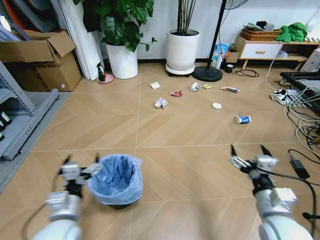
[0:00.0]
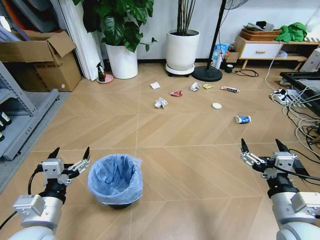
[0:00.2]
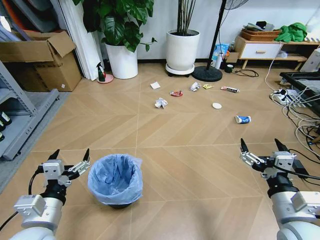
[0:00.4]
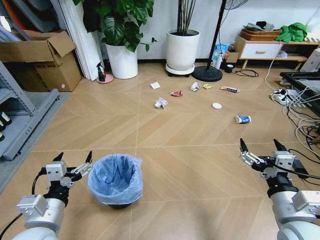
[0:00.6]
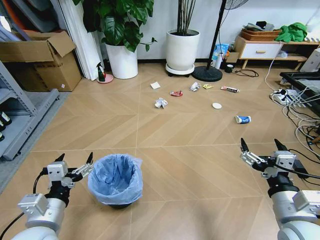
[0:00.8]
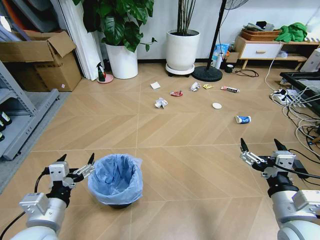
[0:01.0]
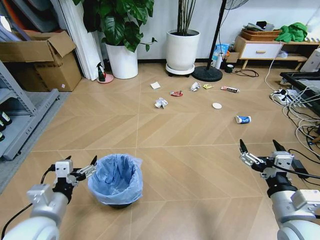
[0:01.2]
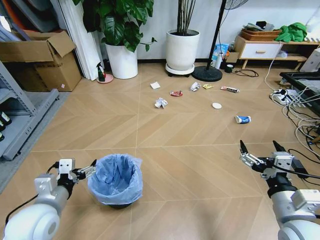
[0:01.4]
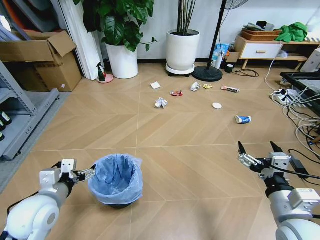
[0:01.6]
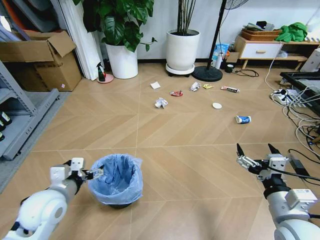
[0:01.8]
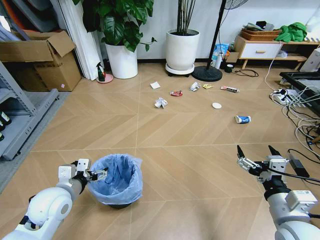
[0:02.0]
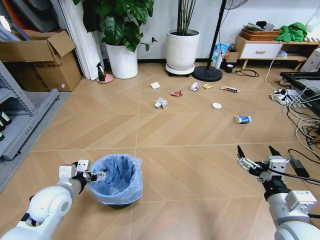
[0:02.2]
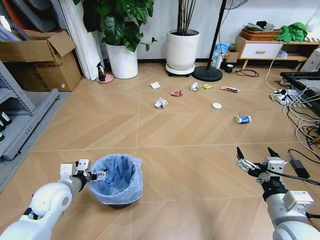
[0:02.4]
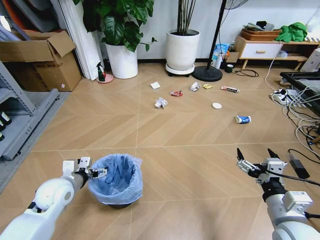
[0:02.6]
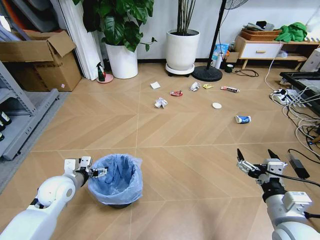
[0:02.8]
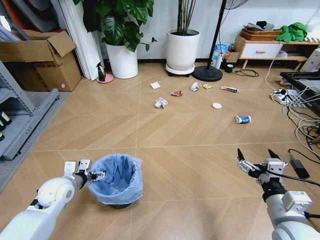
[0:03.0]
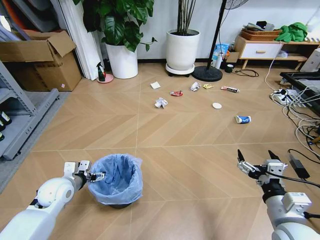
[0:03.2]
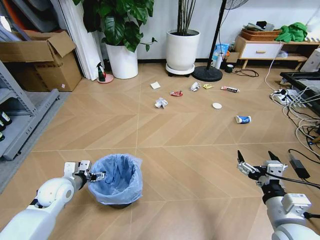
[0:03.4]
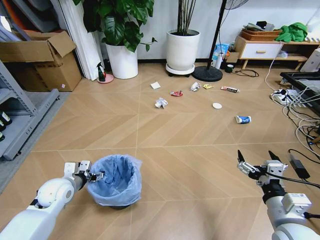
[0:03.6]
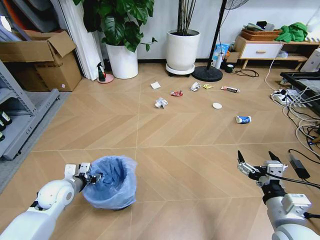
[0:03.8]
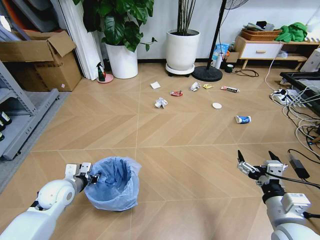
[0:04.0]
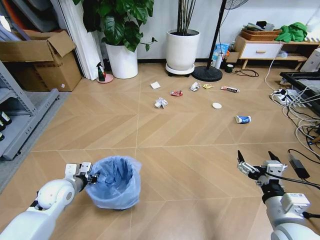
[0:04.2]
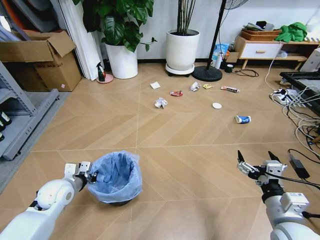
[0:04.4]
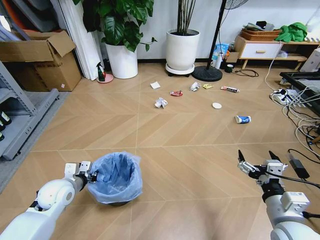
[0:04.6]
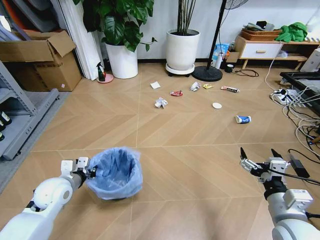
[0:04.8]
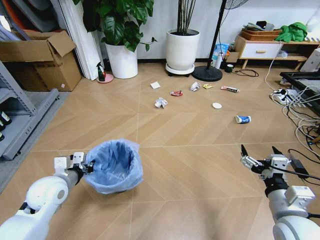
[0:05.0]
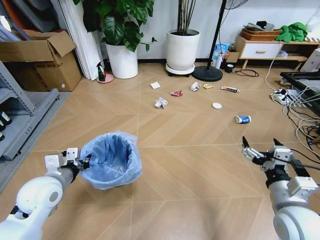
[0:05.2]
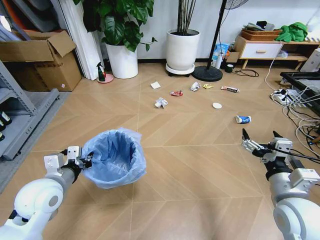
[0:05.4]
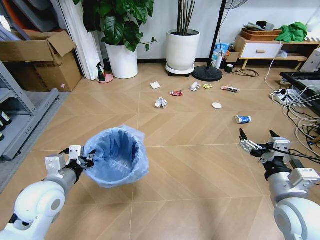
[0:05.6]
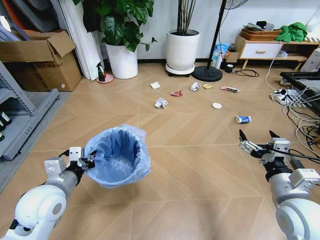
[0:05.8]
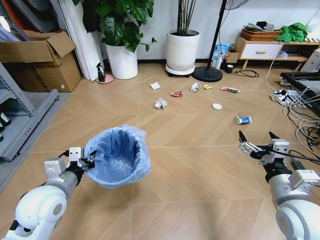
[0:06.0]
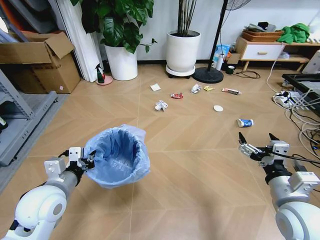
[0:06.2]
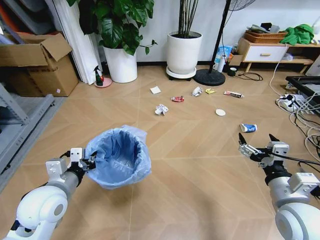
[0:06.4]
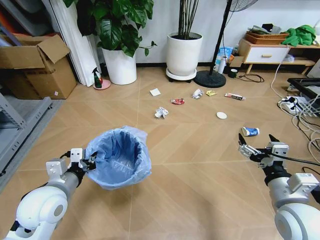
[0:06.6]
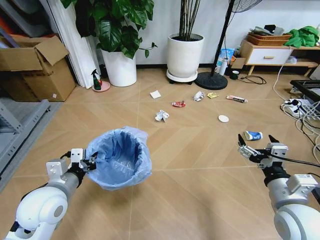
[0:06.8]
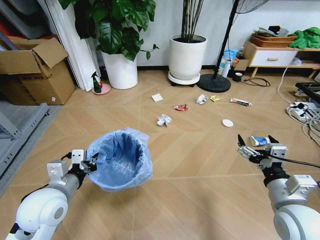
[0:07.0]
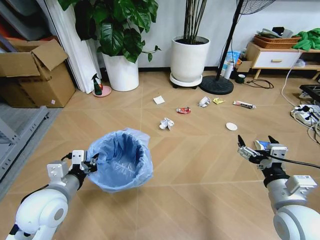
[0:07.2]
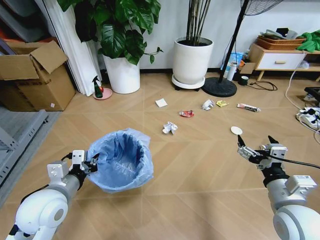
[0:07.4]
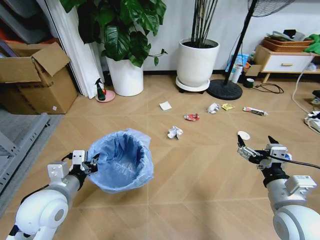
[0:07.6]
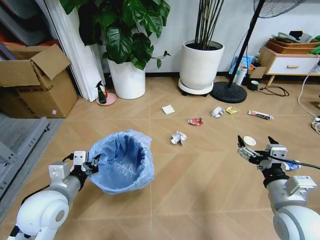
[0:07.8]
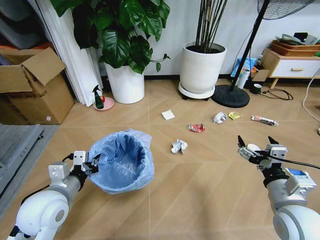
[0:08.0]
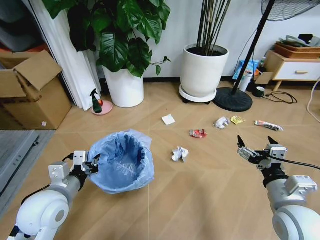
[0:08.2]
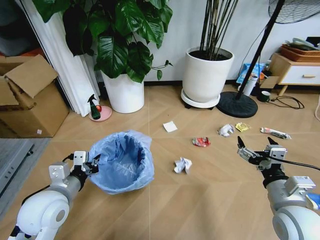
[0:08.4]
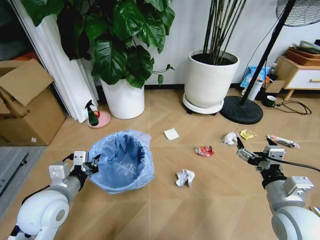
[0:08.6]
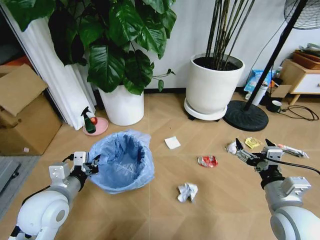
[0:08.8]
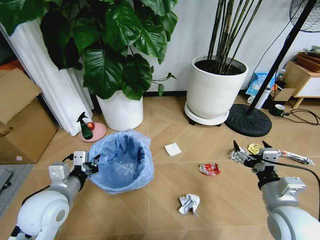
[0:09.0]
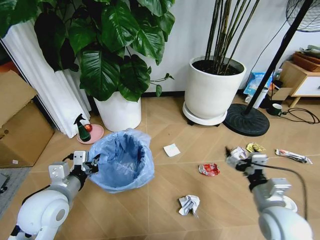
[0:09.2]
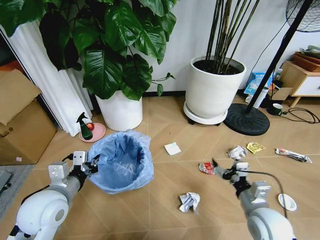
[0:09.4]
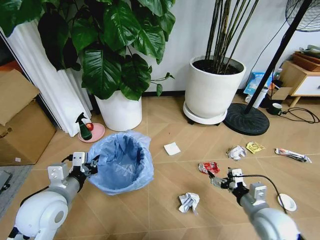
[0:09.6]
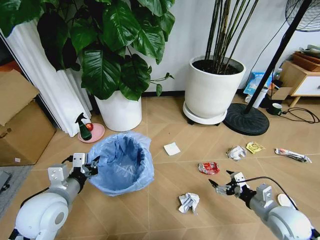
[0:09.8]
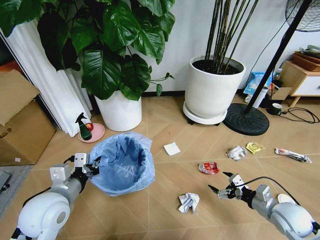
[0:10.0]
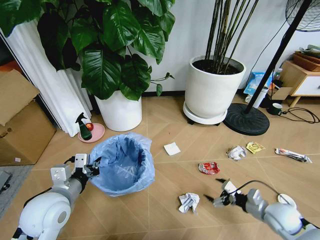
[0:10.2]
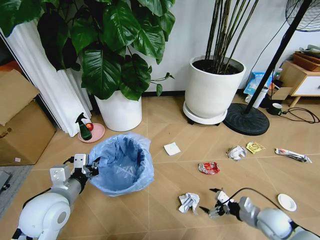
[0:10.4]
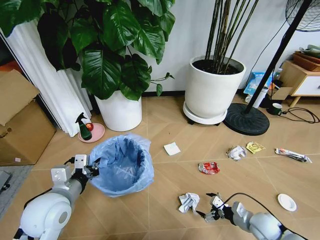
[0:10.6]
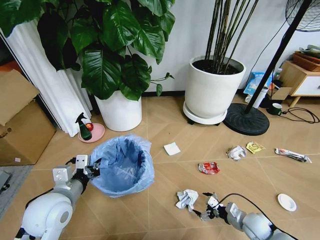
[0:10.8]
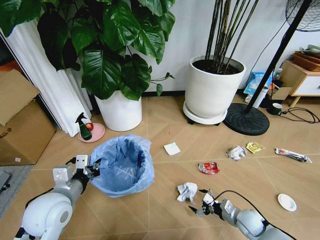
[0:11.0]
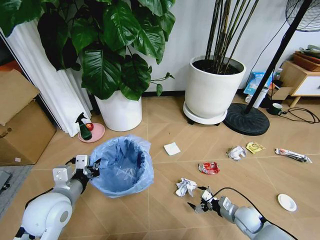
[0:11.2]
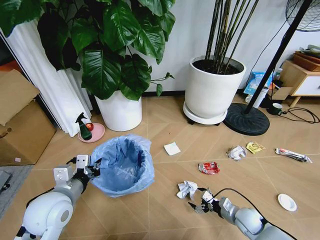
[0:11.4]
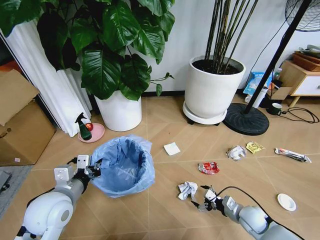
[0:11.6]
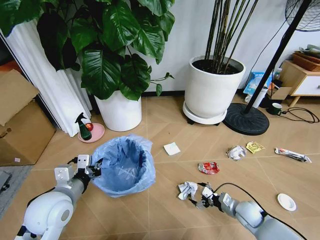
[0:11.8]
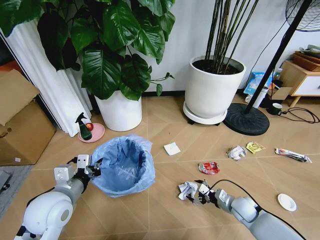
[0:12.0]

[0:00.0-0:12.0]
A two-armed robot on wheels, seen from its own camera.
Task of the whole recording: Pick up the trash bin and place the garbage on the floor into it.
0:01.6 to 0:03.0: The left gripper is displaced forward and downward by some 10 cm.
0:03.0 to 0:04.4: The left gripper closes.
0:04.4 to 0:06.0: The left gripper travels upward, backward and to the right by some 15 cm; the right gripper shifts by about 5 cm.
0:09.0 to 0:10.4: The right gripper heads downward and to the right, covering some 20 cm.
0:10.4 to 0:12.0: The right gripper moves forward, downward and to the left, approximately 10 cm.

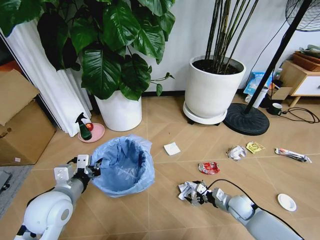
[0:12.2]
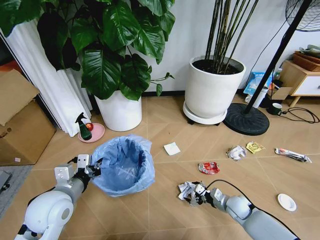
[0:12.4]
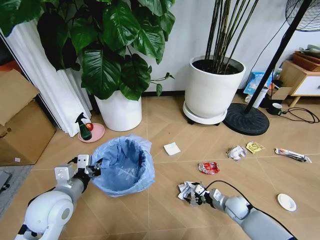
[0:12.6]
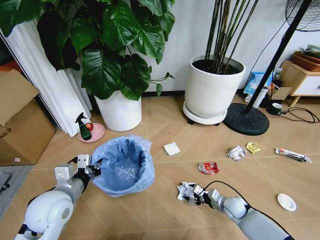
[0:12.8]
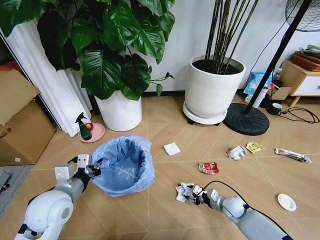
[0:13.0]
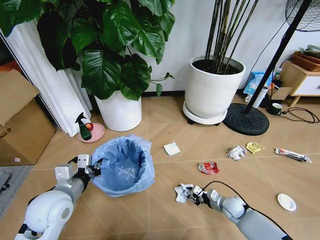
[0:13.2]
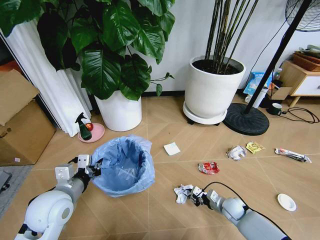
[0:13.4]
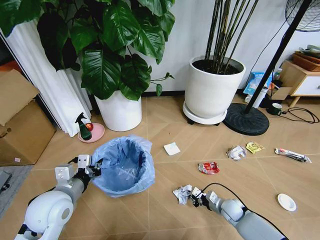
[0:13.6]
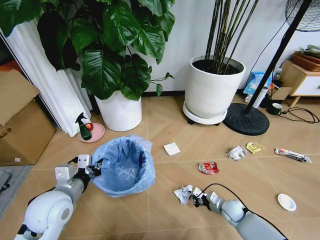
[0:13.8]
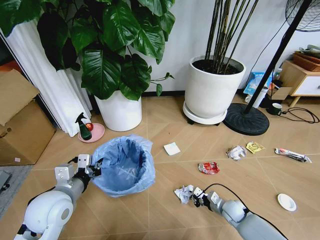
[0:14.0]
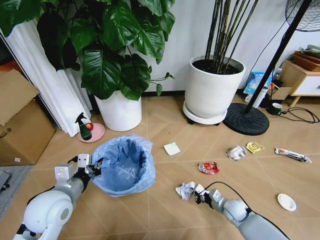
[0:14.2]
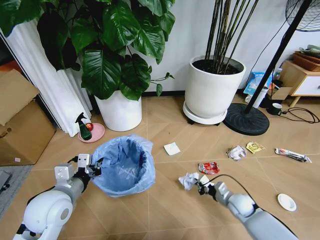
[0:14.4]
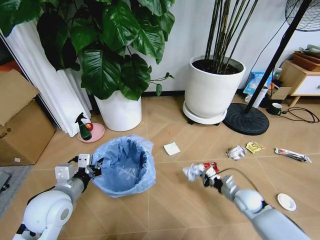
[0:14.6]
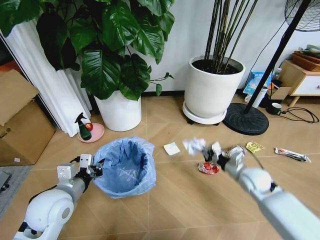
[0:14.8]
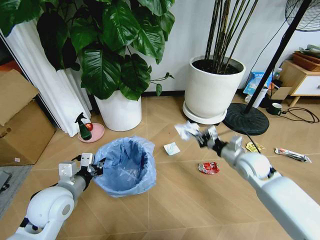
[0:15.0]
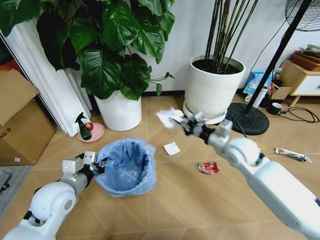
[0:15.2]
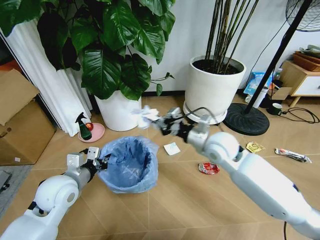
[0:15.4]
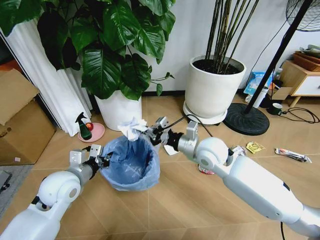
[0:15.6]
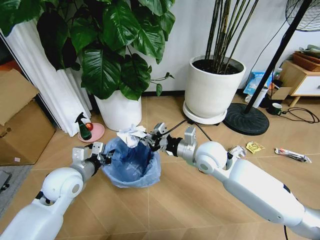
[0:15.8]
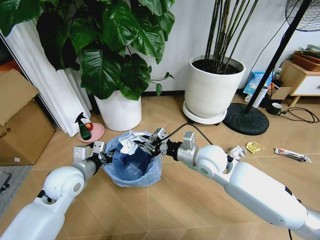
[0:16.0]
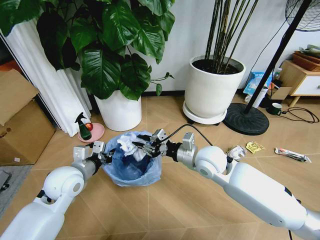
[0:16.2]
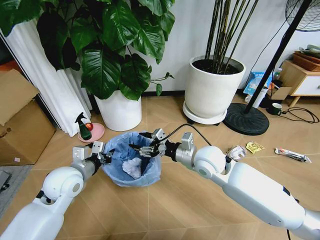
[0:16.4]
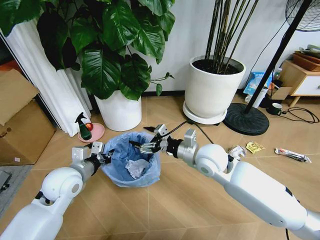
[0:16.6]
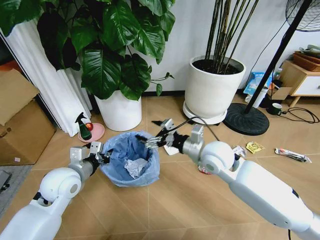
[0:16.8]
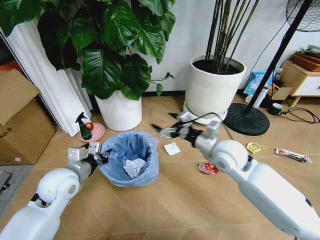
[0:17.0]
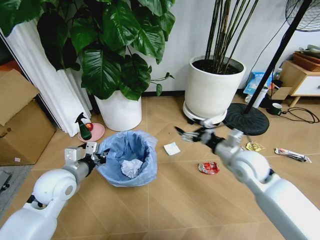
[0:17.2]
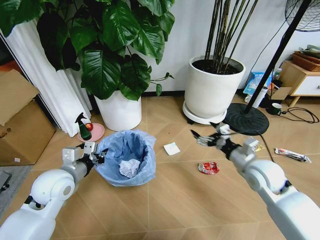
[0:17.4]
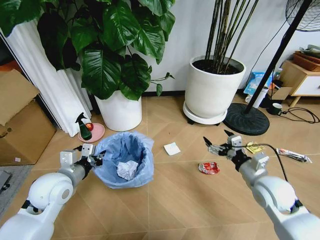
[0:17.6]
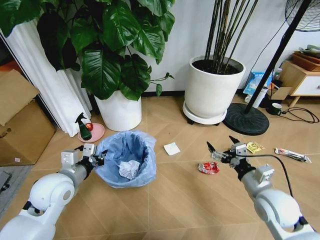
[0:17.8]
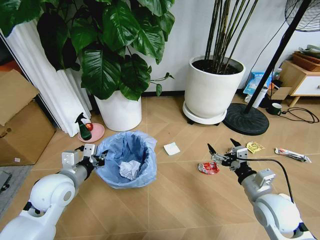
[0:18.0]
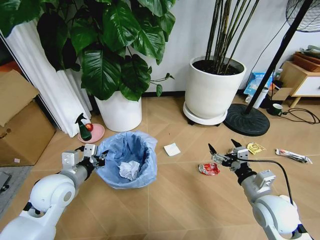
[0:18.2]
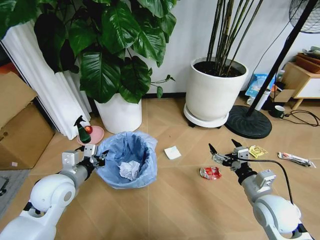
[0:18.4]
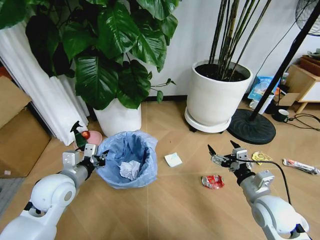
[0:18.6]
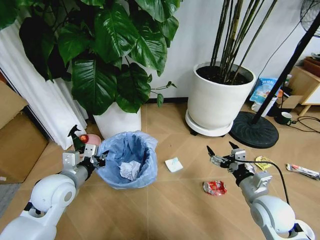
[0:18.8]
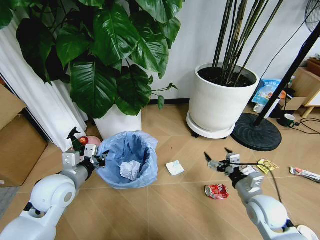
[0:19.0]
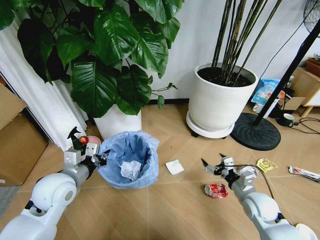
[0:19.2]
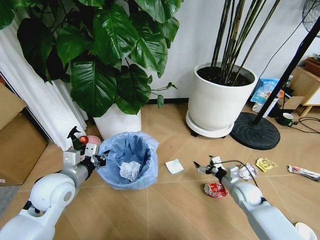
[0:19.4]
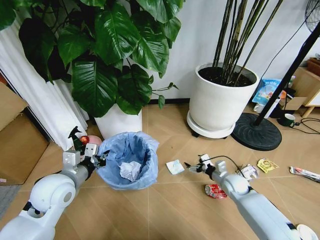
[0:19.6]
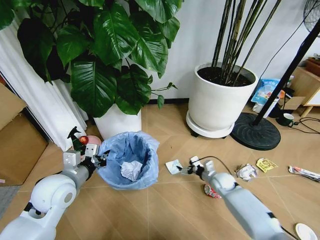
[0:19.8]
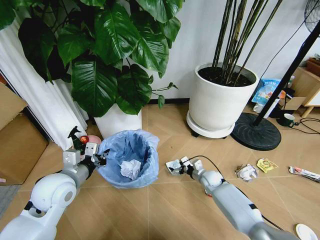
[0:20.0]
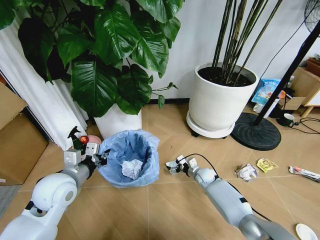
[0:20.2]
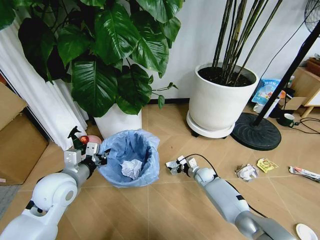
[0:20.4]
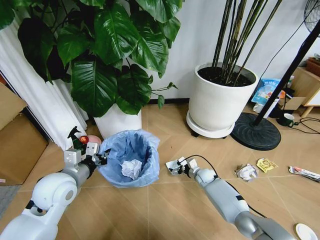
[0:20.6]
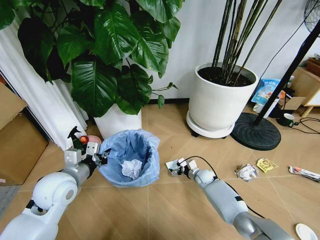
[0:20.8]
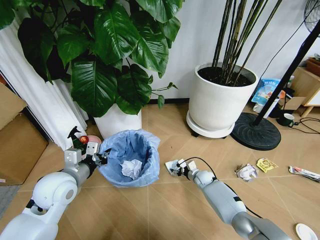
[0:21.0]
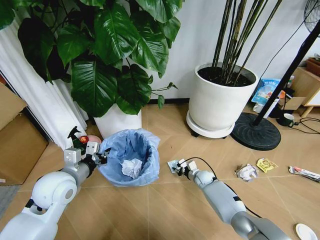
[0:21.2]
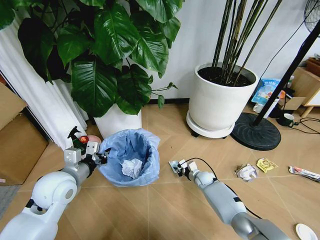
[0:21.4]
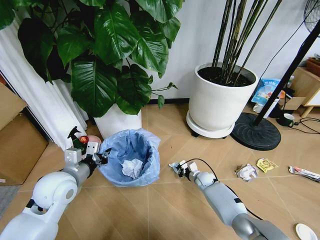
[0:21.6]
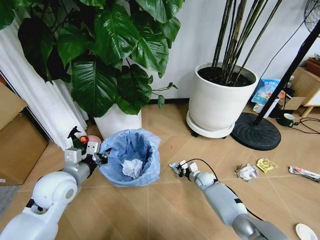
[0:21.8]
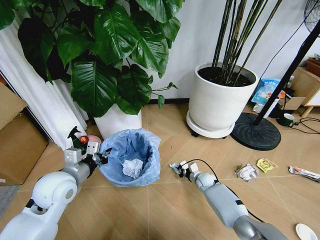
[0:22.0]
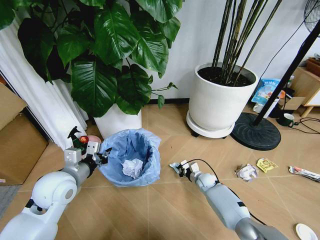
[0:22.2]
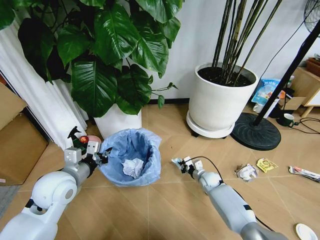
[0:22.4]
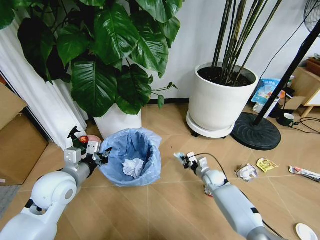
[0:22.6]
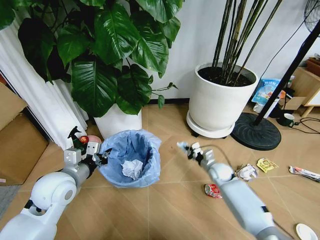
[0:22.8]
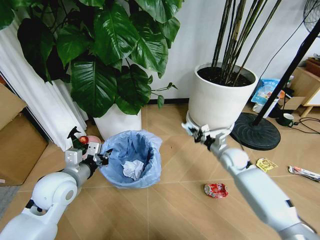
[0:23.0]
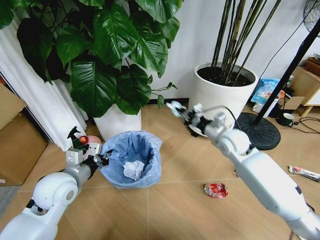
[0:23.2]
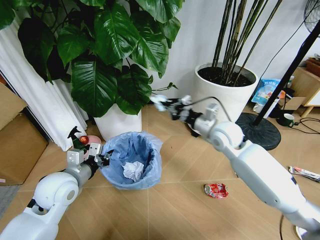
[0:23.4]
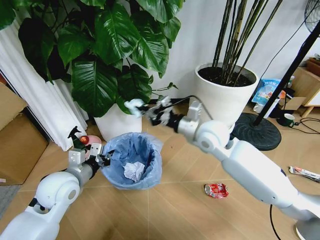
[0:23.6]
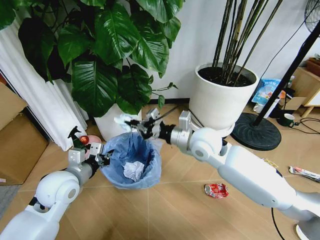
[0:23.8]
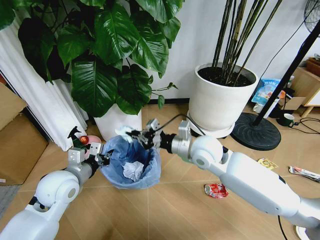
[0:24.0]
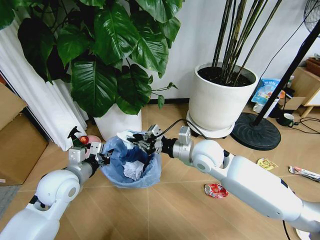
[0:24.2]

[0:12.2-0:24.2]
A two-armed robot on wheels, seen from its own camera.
Task of the whole recording: Pick up the trash bin and place the garbage on the floor into it.
0:12.2 to 0:13.8: The right gripper closes its fingers.
0:13.8 to 0:15.2: The right gripper goes about 30 cm upward.
0:15.2 to 0:16.6: The right gripper moves to the left, approximately 10 cm, and opens.
0:16.6 to 0:18.2: The right gripper travels to the right, backward and downward by approximately 20 cm.
0:18.2 to 0:19.8: The right gripper shifts roughly 25 cm downward and forward.
0:19.8 to 0:21.2: The right gripper shifts about 10 cm downward and to the left, and closes.
0:21.2 to 0:22.6: The right gripper moves about 5 cm, and closes up.
0:22.6 to 0:24.2: The right gripper goes about 30 cm upward.
